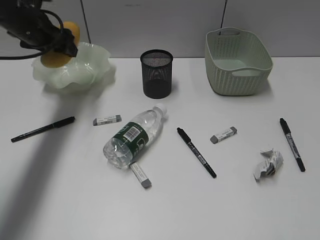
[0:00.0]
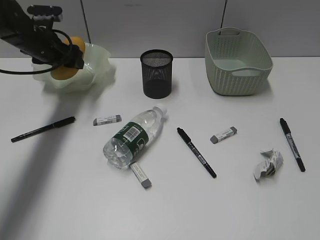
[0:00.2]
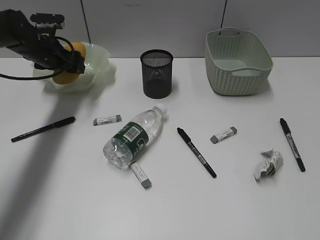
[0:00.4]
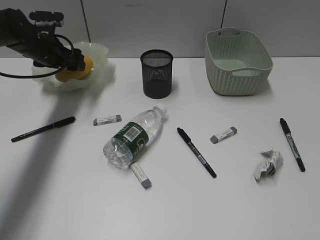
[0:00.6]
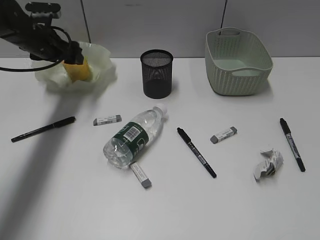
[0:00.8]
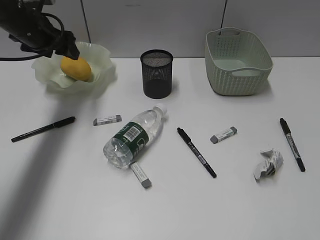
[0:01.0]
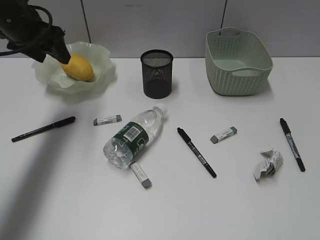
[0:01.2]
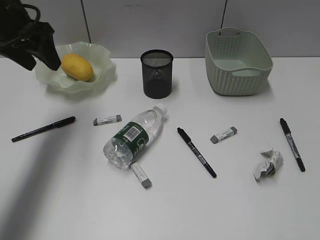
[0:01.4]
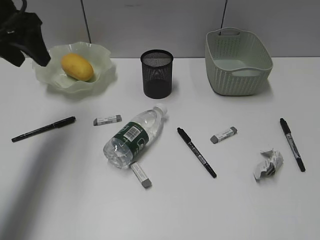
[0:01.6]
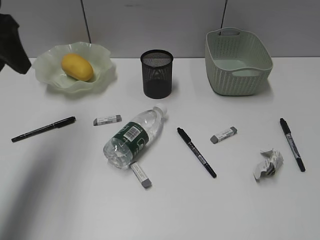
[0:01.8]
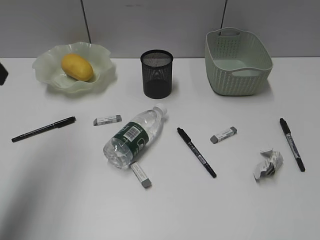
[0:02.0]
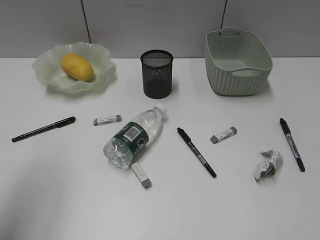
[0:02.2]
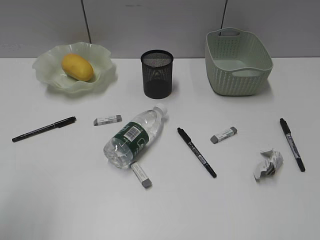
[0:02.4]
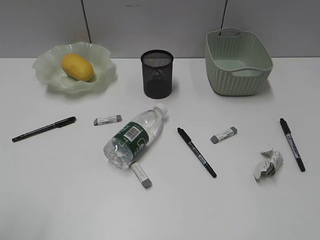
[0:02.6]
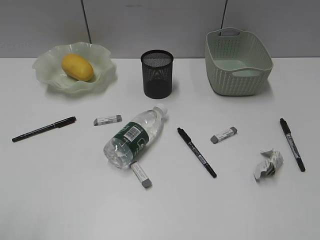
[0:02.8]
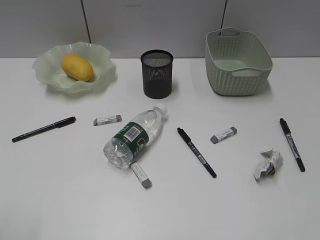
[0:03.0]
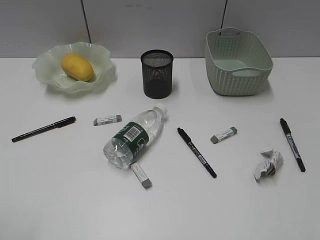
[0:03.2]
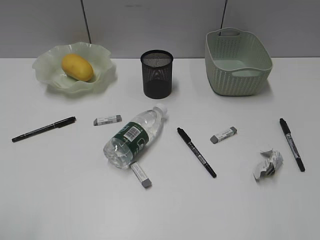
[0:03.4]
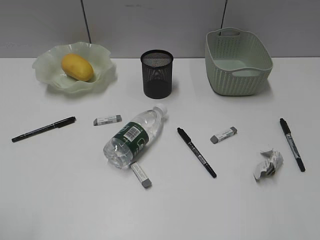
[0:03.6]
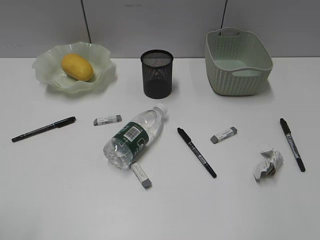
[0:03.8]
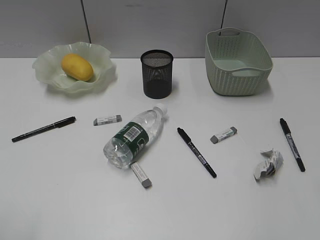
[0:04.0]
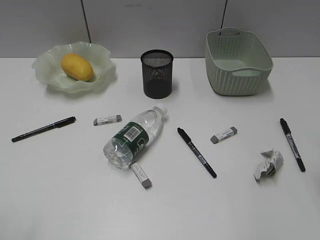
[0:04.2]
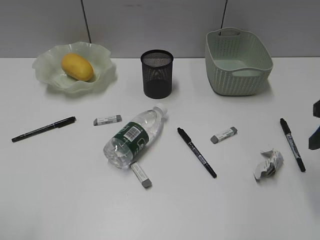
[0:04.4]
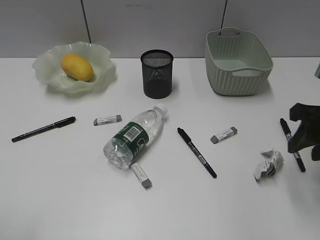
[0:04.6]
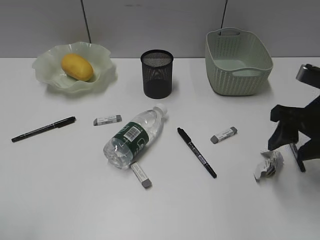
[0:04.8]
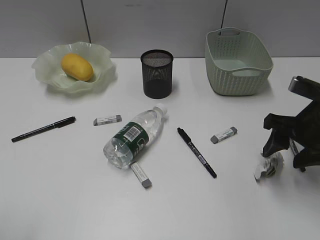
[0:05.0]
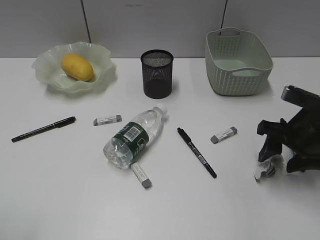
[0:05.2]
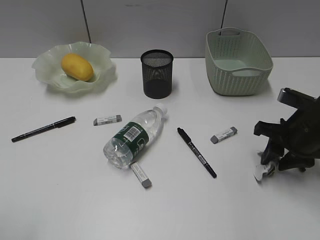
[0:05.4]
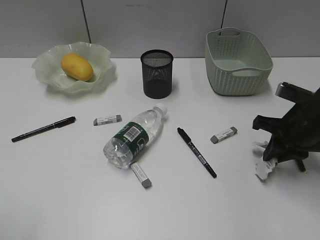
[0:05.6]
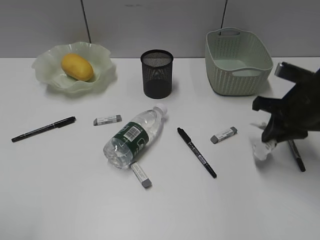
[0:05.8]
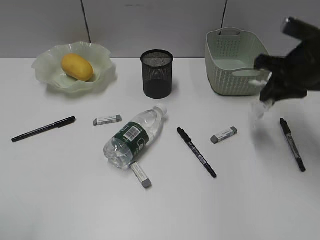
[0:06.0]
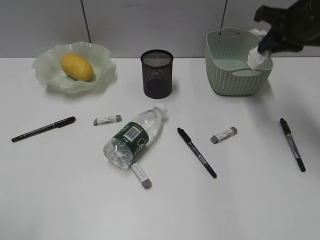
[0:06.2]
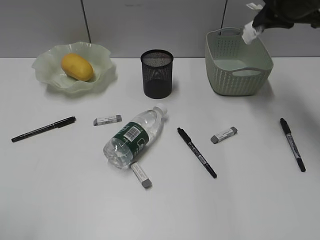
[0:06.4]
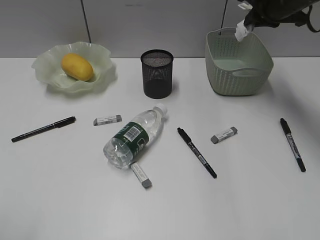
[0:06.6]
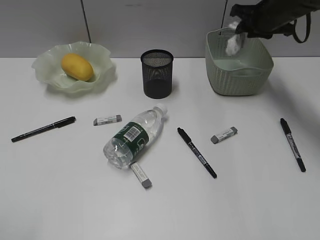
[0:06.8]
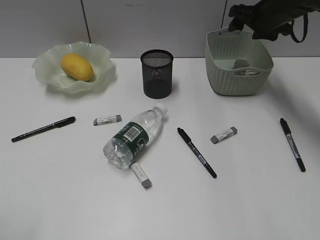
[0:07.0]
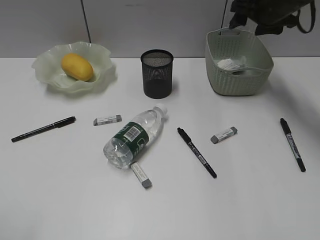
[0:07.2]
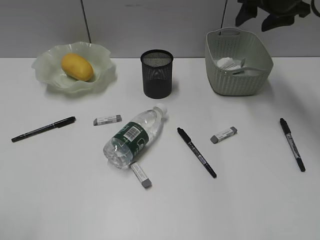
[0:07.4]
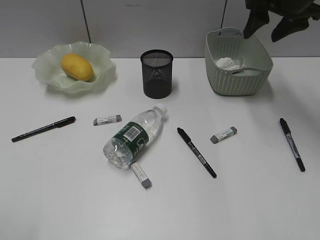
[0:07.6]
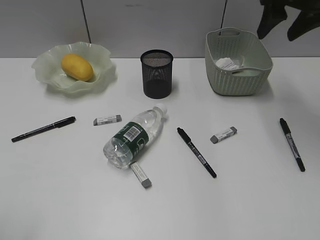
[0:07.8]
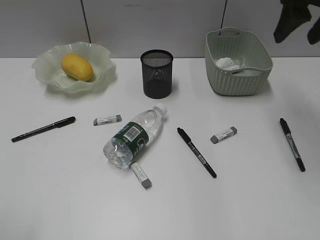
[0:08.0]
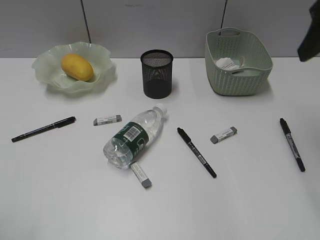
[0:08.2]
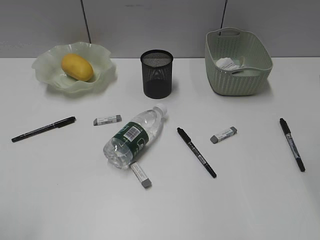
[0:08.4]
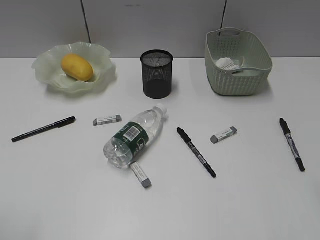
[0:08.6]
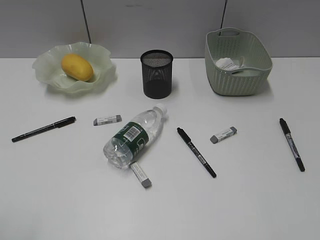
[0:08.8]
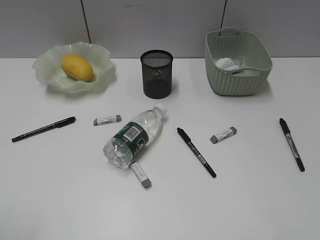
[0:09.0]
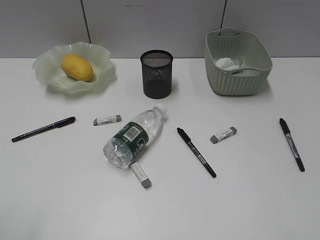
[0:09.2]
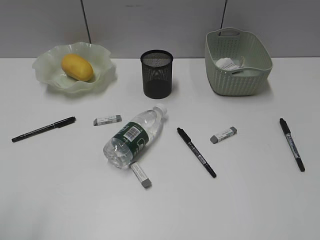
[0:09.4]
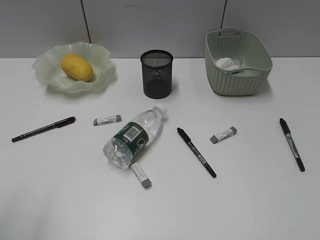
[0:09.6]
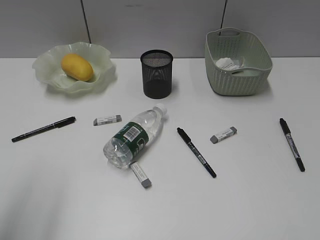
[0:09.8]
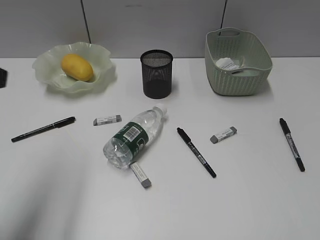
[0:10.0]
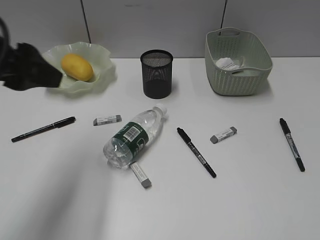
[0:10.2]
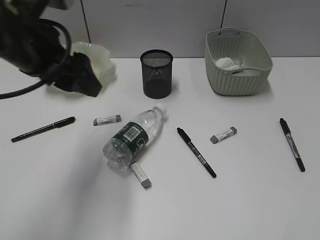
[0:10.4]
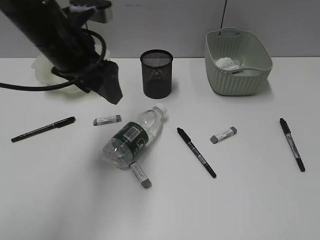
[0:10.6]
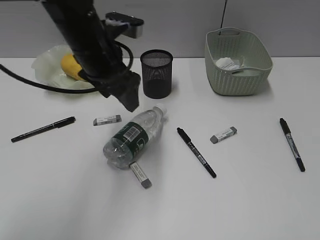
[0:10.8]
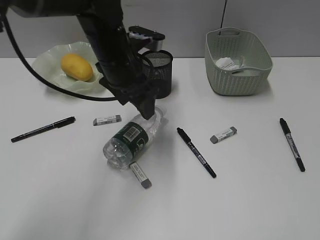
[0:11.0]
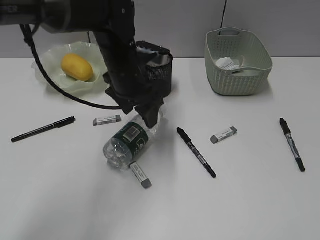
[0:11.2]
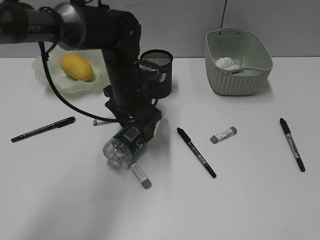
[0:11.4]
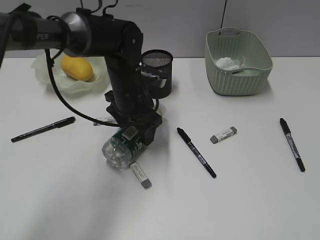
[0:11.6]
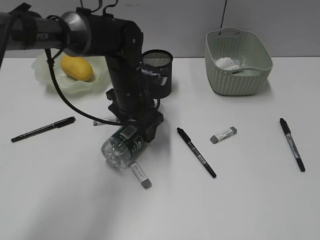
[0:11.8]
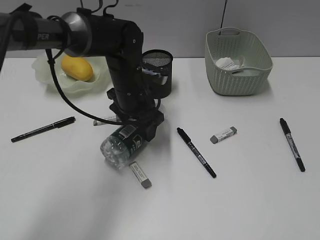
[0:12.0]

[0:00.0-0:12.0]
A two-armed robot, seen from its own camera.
Step, 0:01.2 to 0:05.6: Grasp the waste paper with right gripper.
Step, 0:05.8 to 0:07.0: Place the waste paper in the basket with right gripper.
0:00.0 to 0:01.6: The left gripper goes about 15 cm backward and upward.
0:01.6 to 0:03.0: The left gripper travels backward by about 35 cm.
0:03.0 to 0:04.4: The right gripper shifts roughly 25 cm forward.
0:04.4 to 0:06.0: The right gripper travels forward and to the left by some 10 cm, and closes its fingers.
0:06.0 to 0:07.6: The right gripper travels forward and upward by about 10 cm, and opens up.
0:07.6 to 0:09.0: The right gripper travels backward by roughly 40 cm.
0:09.0 to 0:10.4: The left gripper shifts roughly 30 cm forward and to the right.
0:10.4 to 0:12.0: The left gripper travels downward, to the right and forward by about 20 cm.

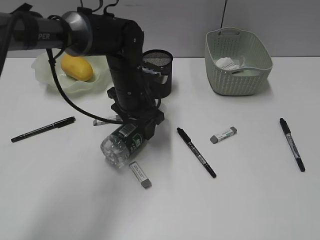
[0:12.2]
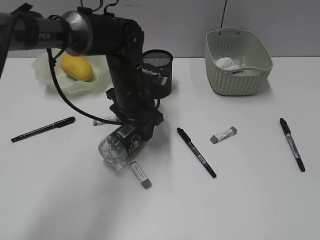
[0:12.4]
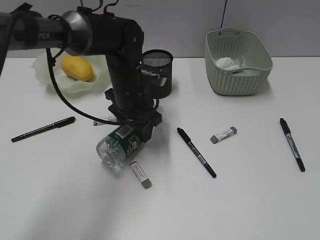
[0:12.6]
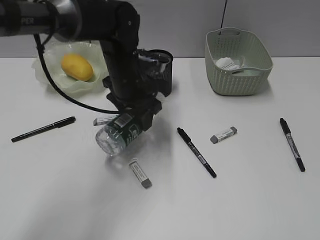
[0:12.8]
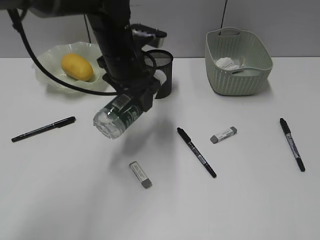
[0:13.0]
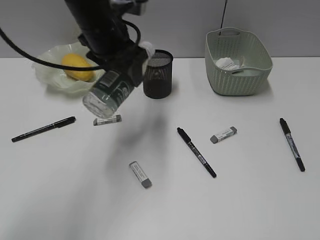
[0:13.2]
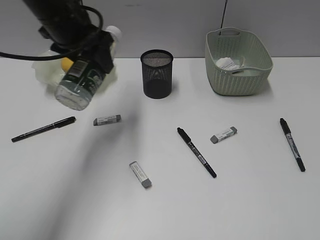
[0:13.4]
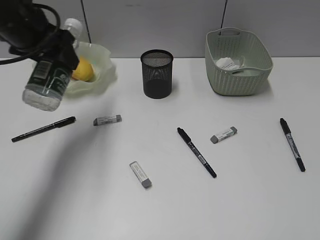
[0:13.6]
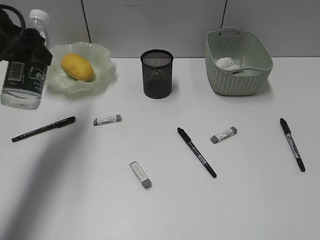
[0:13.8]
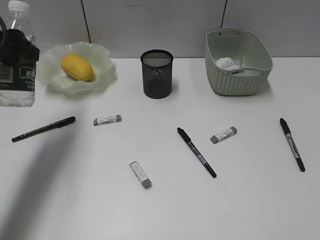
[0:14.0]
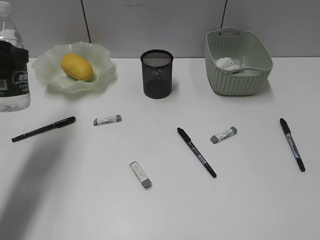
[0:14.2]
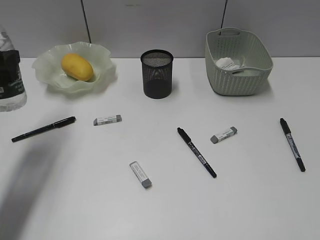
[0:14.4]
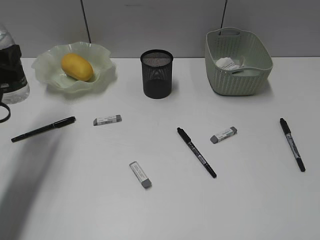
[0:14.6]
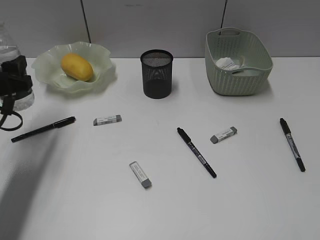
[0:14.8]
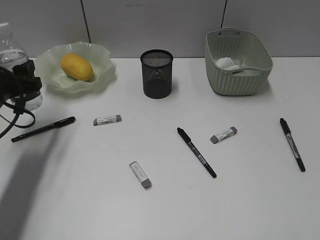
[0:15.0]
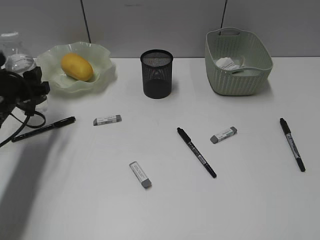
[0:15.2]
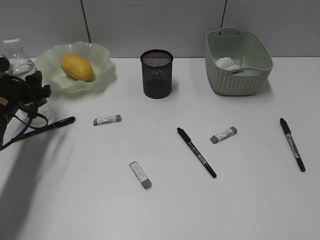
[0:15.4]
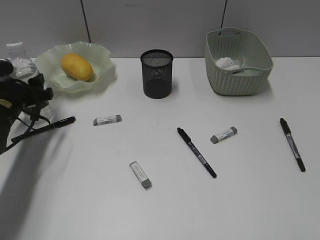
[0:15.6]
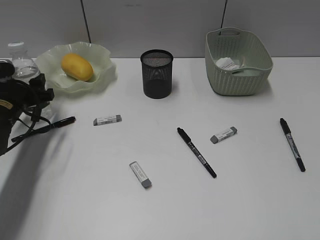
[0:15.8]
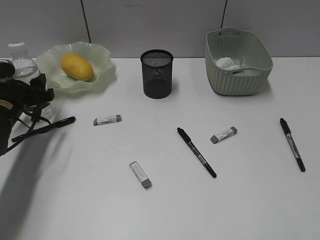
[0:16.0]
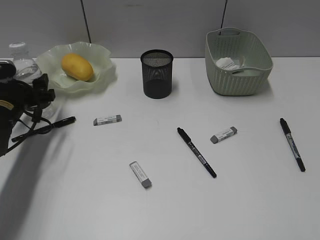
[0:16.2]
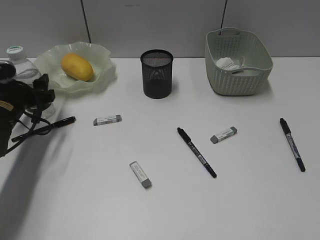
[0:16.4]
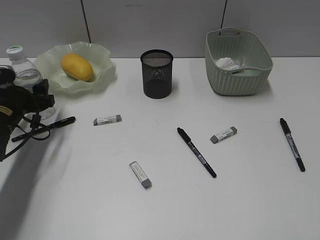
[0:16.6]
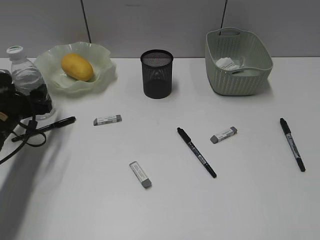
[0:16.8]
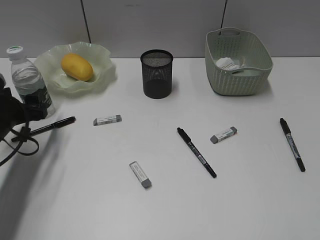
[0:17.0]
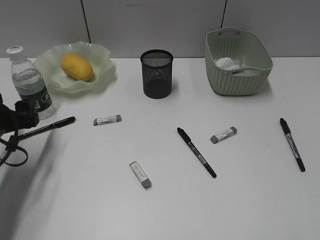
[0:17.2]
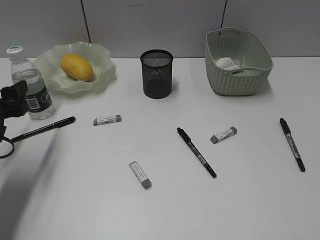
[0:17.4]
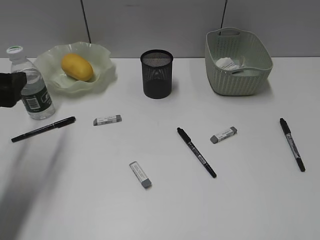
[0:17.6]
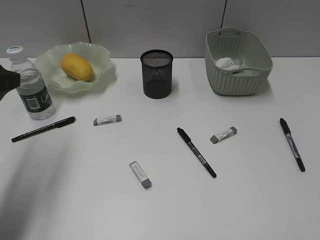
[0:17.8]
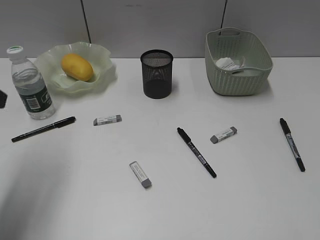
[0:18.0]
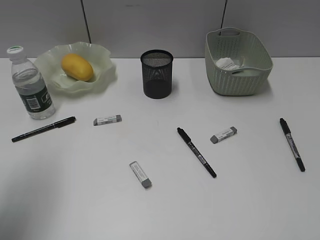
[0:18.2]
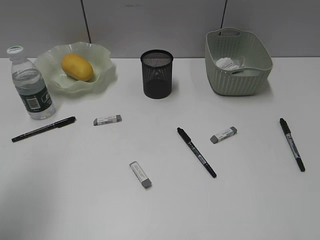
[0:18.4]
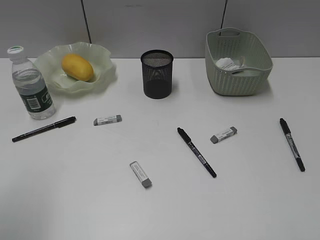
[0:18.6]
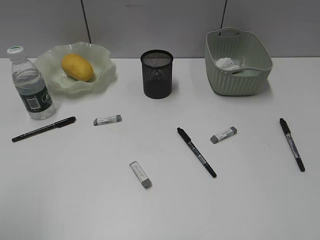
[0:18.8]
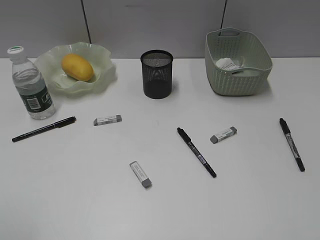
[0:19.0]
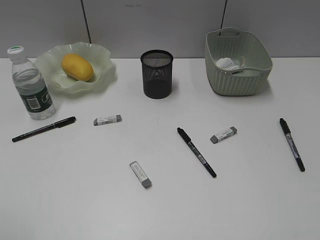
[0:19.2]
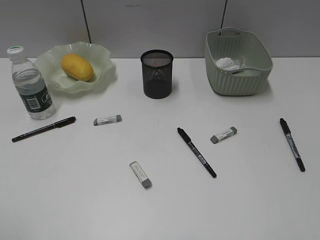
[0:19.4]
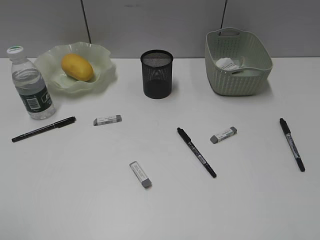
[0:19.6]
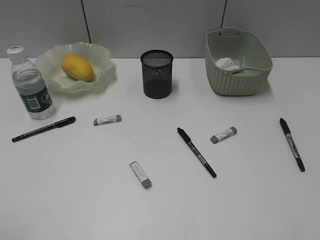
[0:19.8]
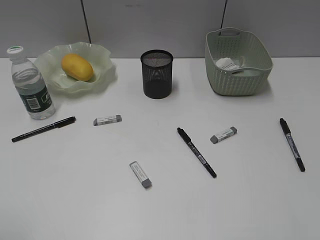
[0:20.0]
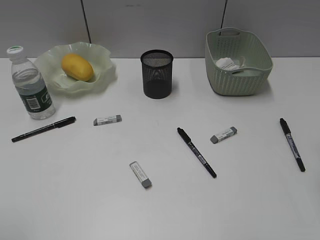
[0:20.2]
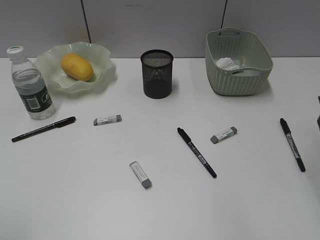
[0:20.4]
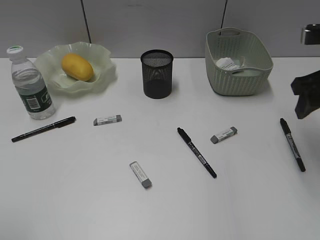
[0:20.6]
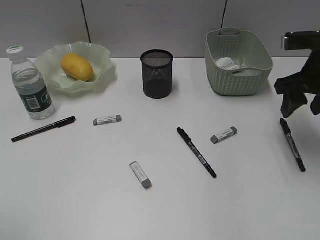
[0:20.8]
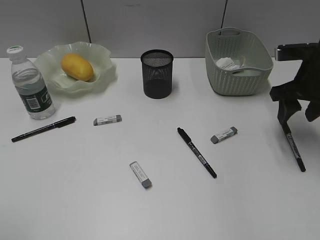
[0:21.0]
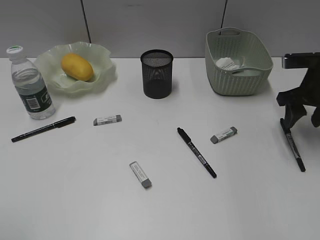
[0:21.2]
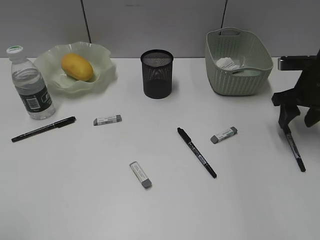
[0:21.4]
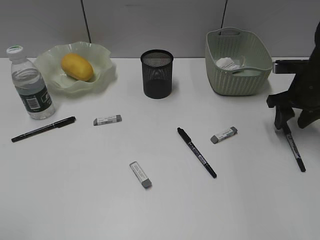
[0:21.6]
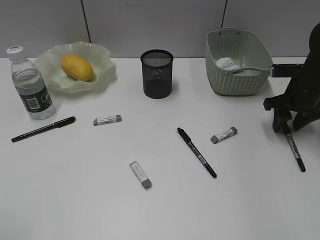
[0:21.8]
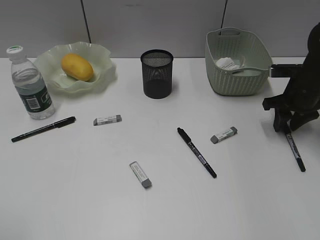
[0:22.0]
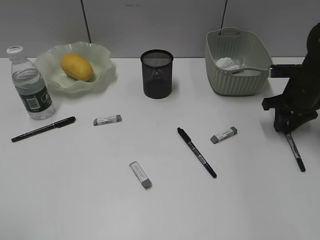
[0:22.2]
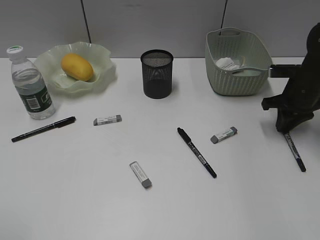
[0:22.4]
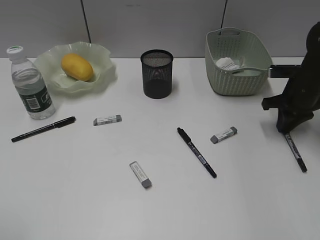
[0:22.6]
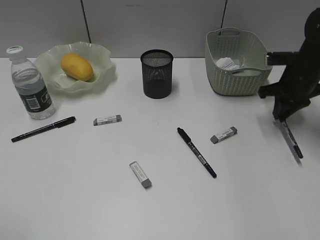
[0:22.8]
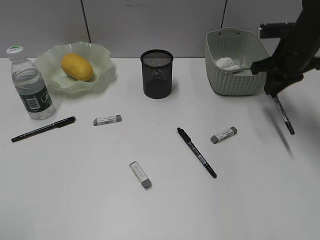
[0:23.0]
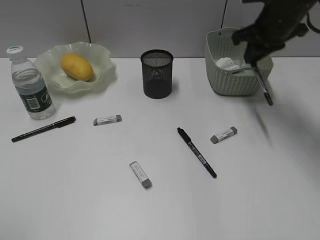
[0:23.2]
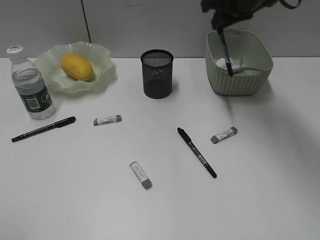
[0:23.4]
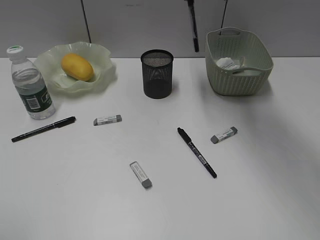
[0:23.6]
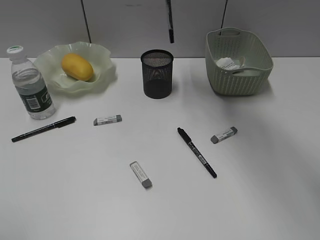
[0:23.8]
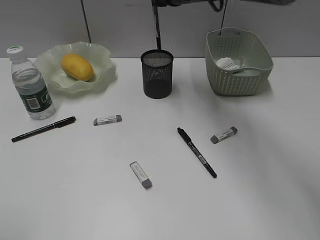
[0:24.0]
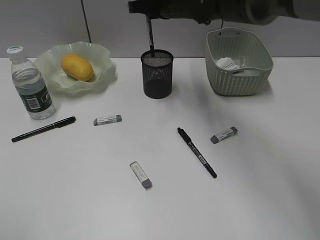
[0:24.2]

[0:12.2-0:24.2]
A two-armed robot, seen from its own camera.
Step, 0:12.2 to 0:17.0: Stand the bottle with left gripper.
Step, 0:17.2 to 0:22.4: Grasp the black pen with right gripper.
0:12.2 to 0:13.8: The left gripper travels to the left and upward by roughly 25 cm.
0:13.8 to 0:15.2: The left gripper goes some 15 cm downward.
0:15.2 to 0:16.6: The grippers stay close to where they were, moving slightly.
0:16.6 to 0:18.2: The left gripper moves upward and backward, roughly 25 cm.
0:18.2 to 0:19.8: The left gripper moves backward, roughly 15 cm.
0:19.8 to 0:21.2: The right gripper travels forward and downward by approximately 35 cm.
0:21.2 to 0:22.6: The right gripper moves roughly 5 cm, and closes up.
0:22.6 to 0:24.2: The right gripper moves to the left and upward, roughly 30 cm.
